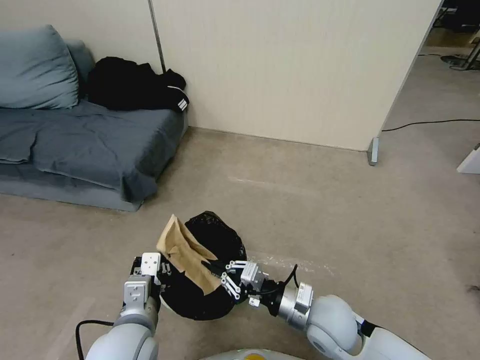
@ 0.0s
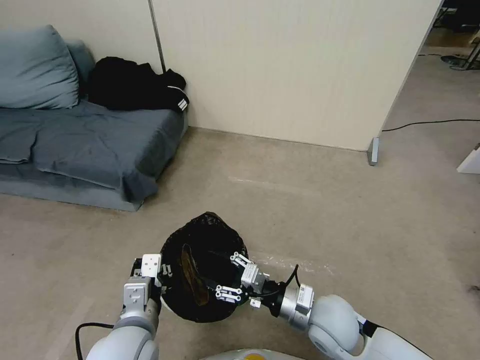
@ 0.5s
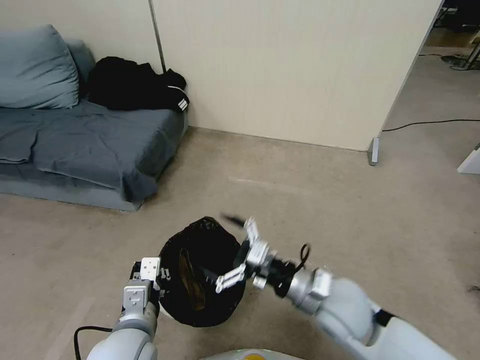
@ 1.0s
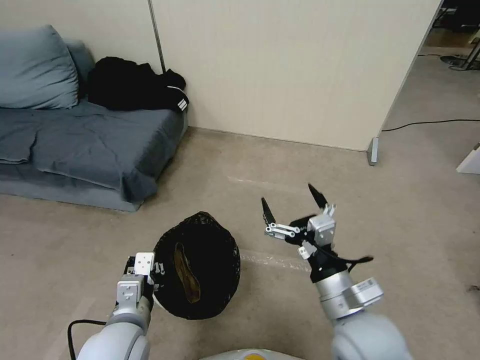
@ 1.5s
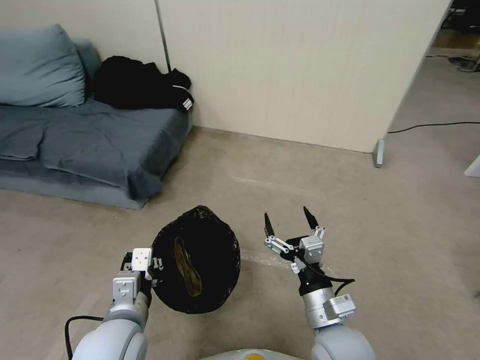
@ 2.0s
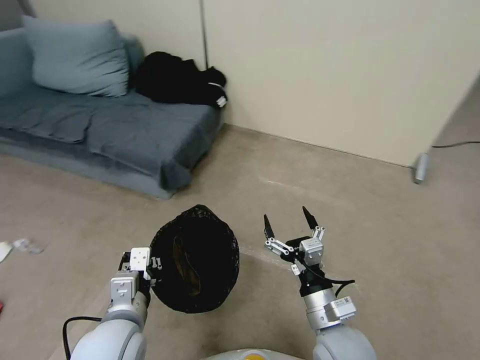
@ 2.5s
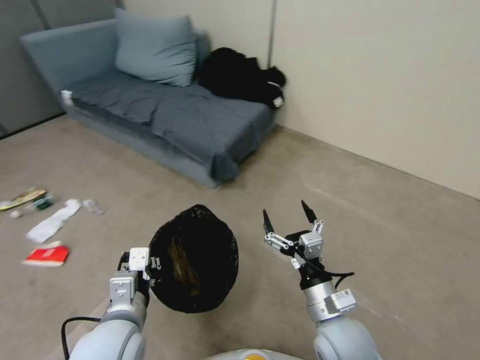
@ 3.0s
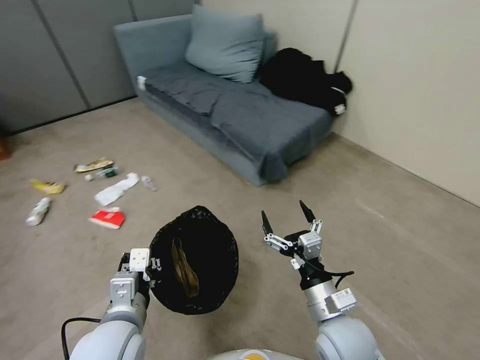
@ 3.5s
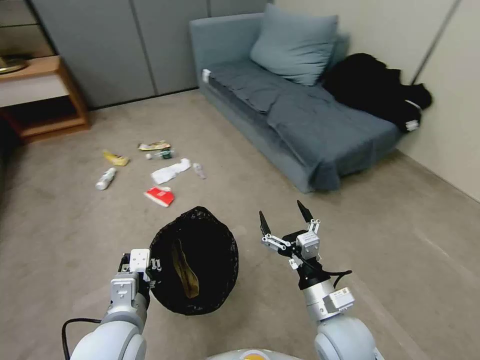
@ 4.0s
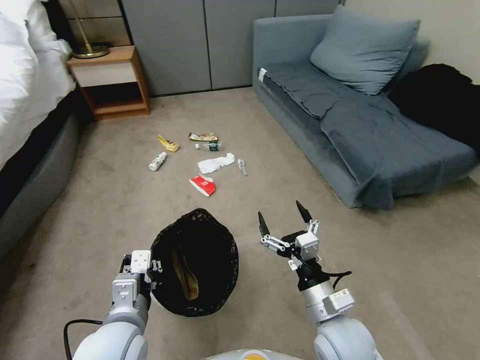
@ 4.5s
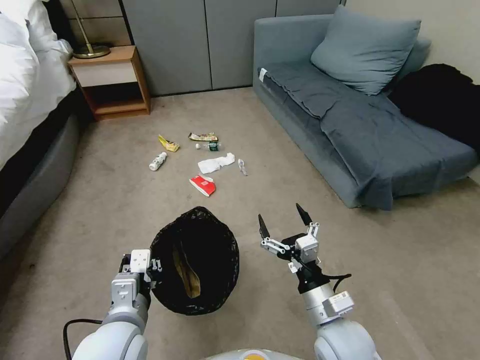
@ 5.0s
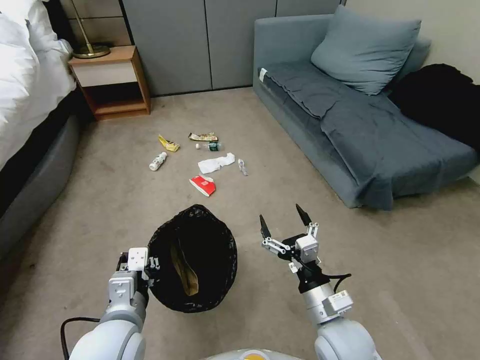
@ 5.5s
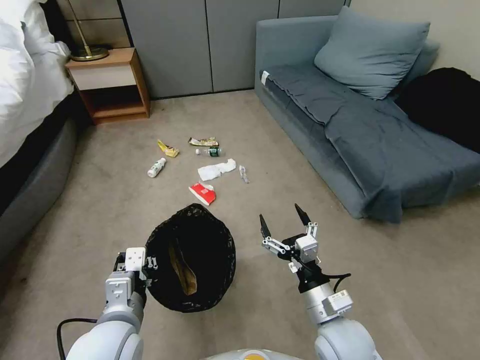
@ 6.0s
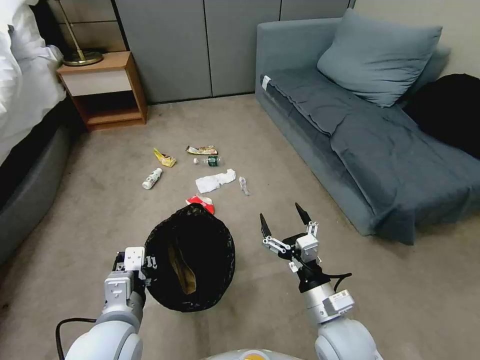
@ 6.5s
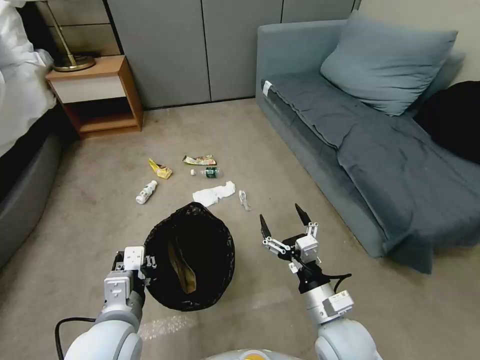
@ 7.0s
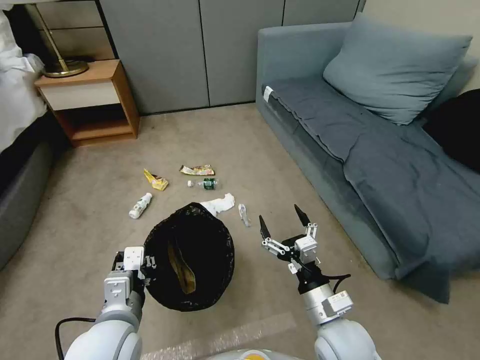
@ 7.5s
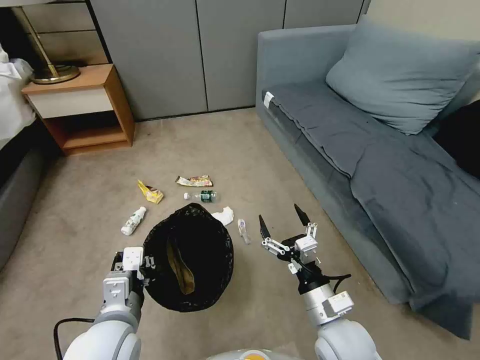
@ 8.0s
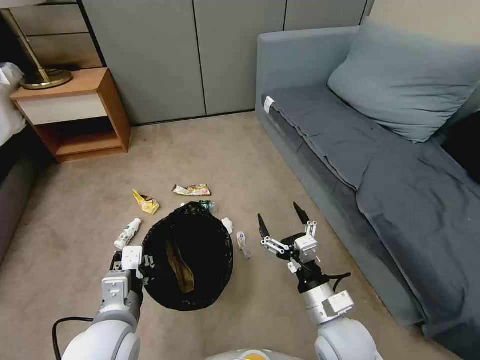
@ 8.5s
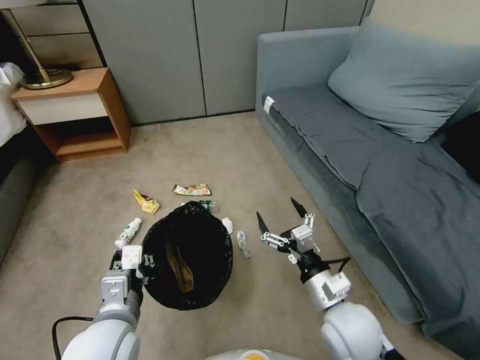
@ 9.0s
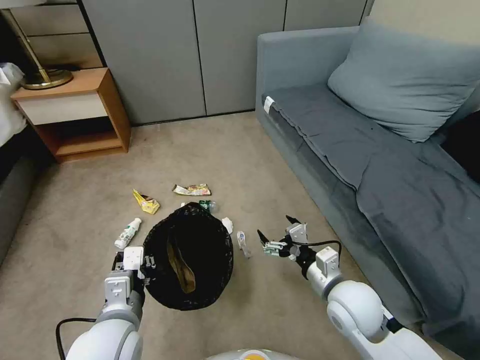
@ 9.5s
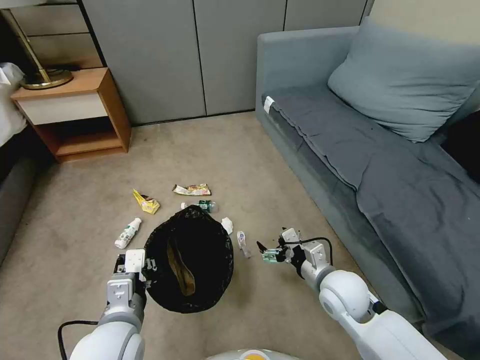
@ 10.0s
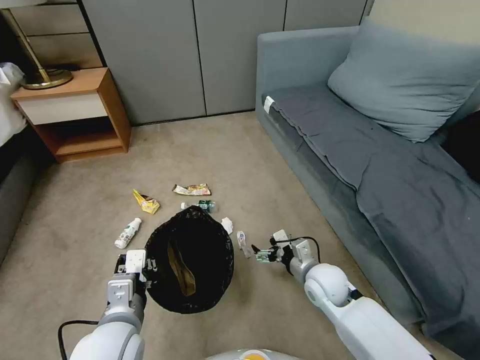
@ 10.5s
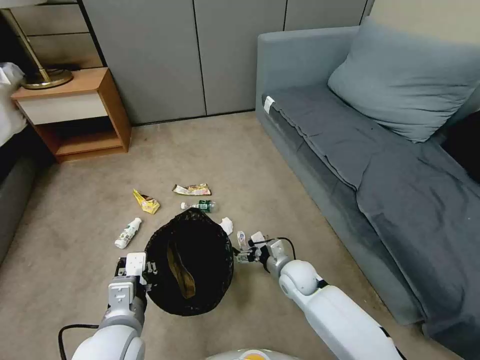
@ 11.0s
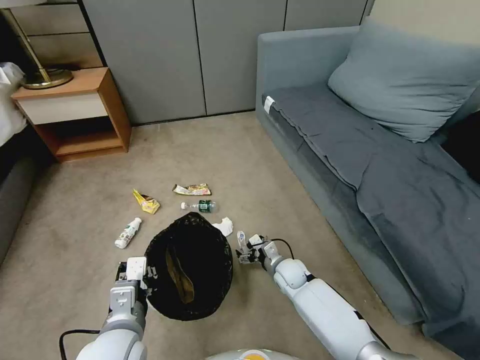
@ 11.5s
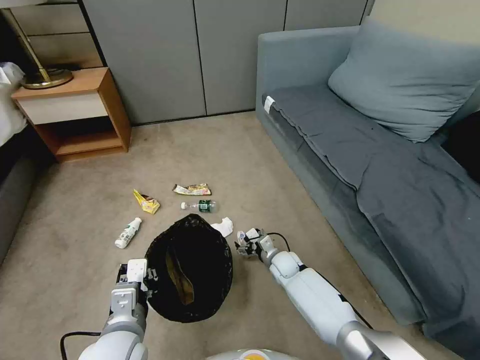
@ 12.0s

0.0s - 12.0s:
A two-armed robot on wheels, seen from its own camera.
Task of the whole recording: Pick up the trash bin, then pick up the garbage from the floor and place it into the trash bin.
0.0s - 2.0s: The right gripper moves backward, about 5 cm, reaches approximately 10 cm upward, then returns, and opens up.
8.0s - 10.0s: The right gripper moves forward, roughly 10 cm.
10.0s - 12.0s: The right gripper is displaced downward, forward and to the left by about 25 cm.

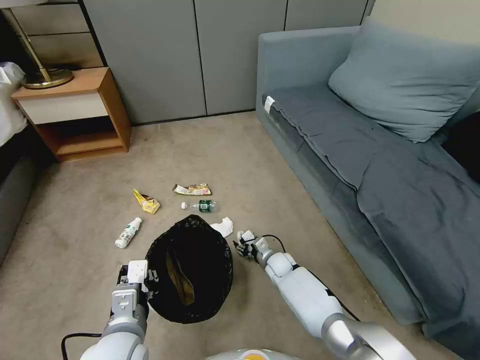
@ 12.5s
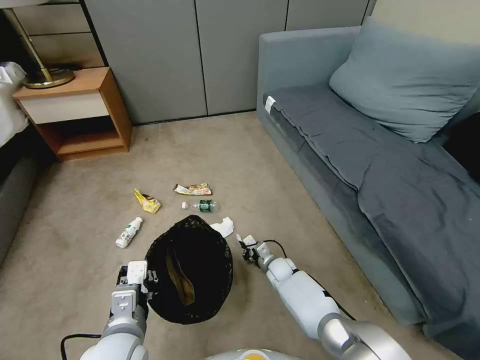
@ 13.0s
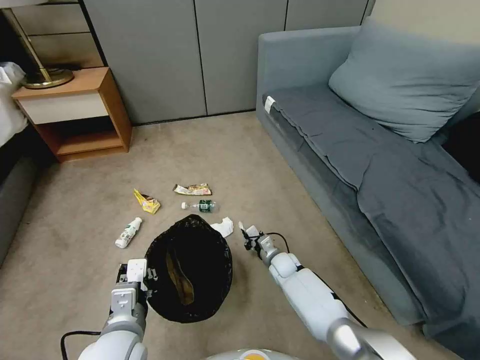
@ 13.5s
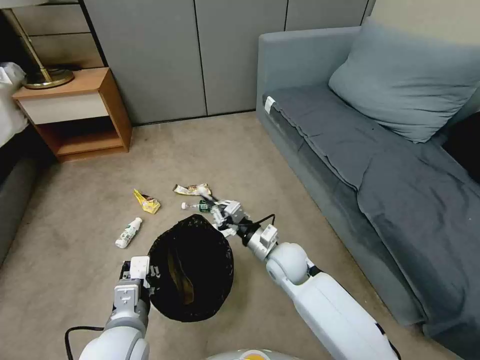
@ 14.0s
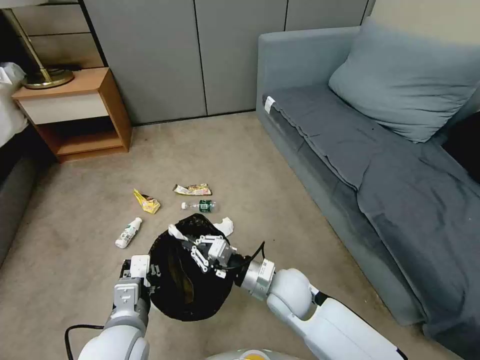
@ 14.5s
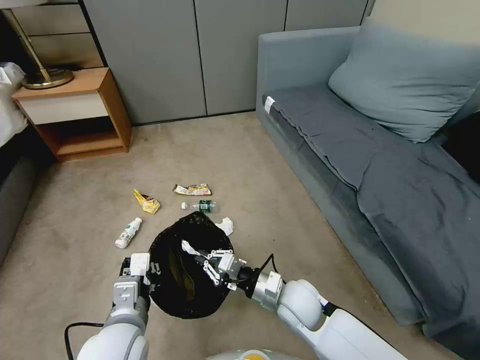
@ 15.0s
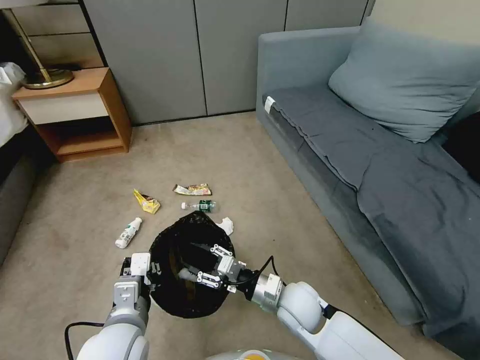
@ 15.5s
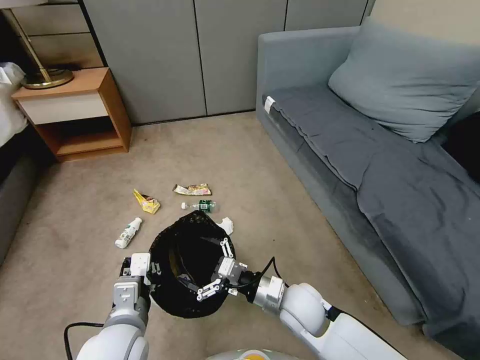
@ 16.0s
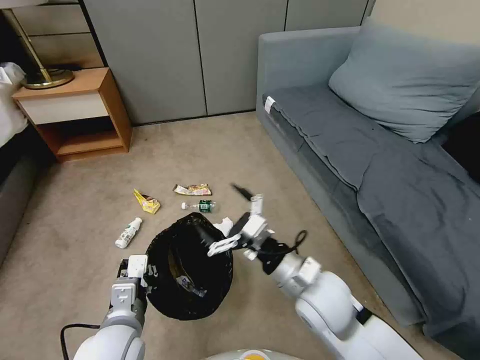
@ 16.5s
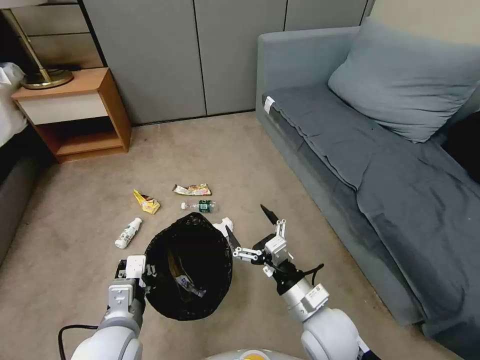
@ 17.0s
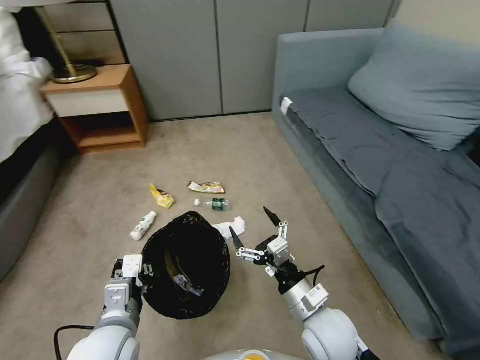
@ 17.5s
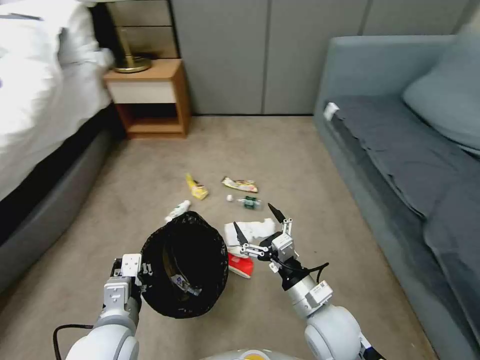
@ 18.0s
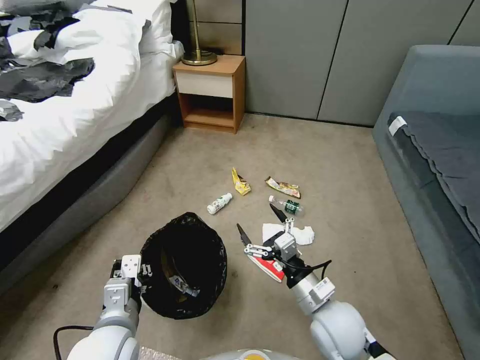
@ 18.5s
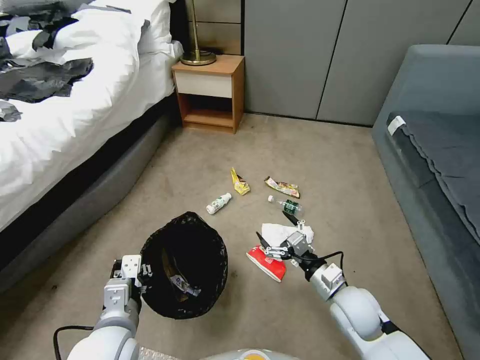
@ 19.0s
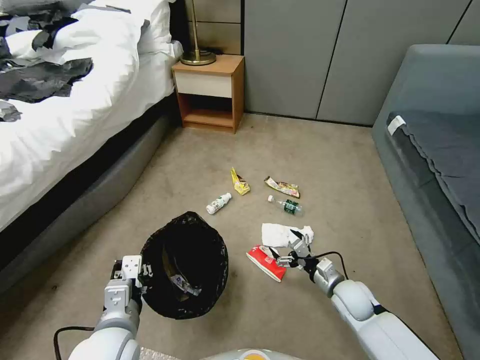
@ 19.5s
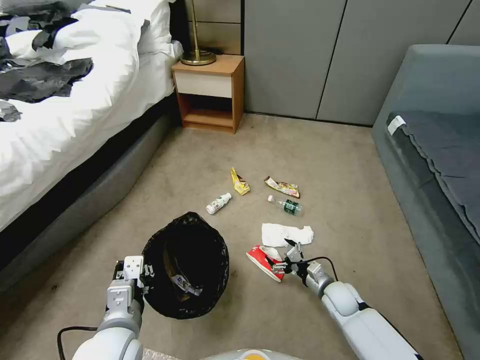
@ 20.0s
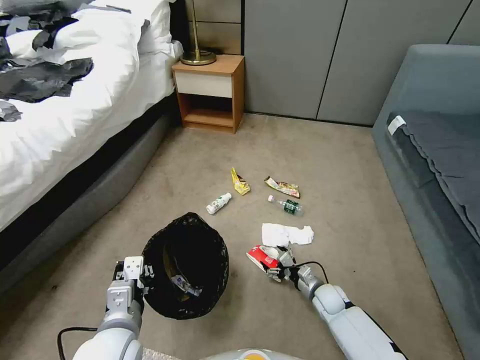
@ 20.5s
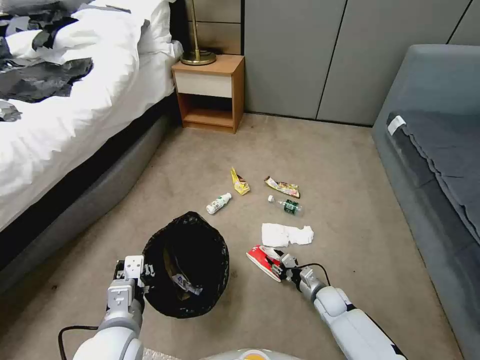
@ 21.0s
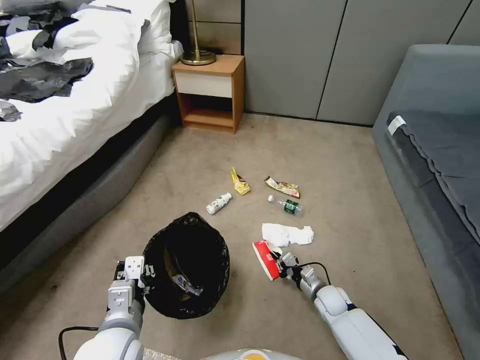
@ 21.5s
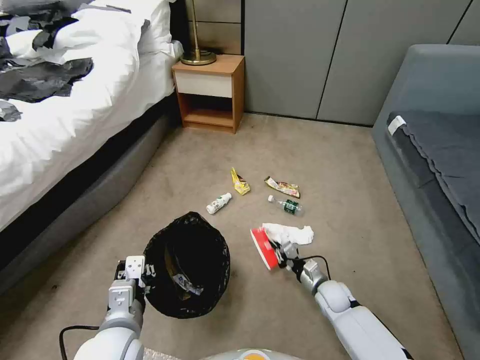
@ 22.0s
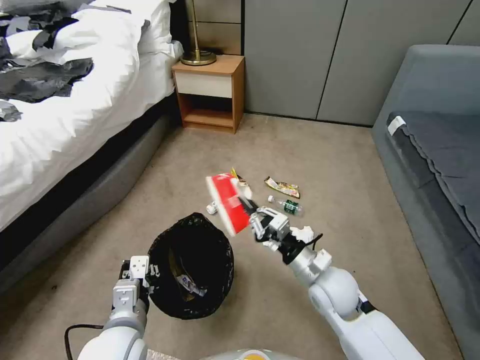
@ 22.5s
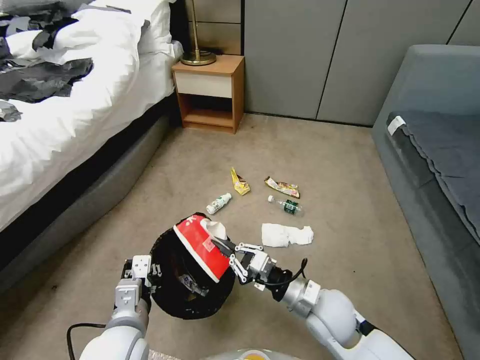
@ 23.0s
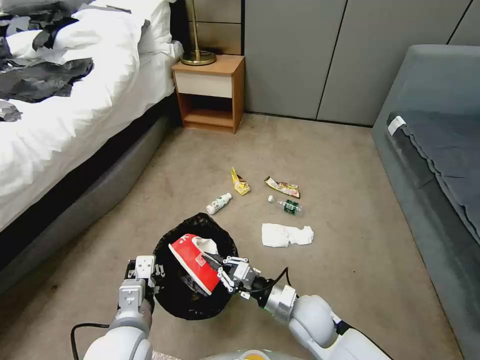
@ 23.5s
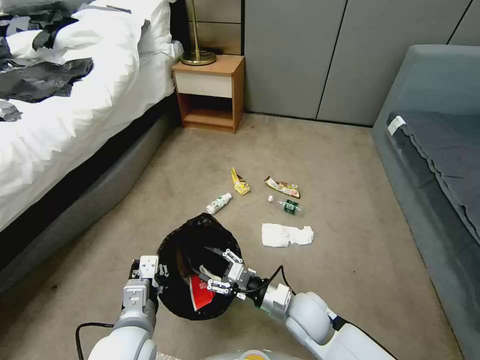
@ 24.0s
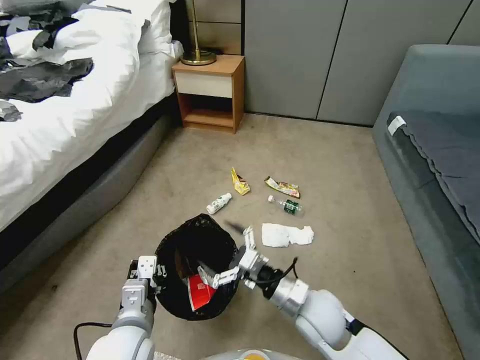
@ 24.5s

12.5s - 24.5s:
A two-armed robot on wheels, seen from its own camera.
Task of the whole recording: Pick up the trash bin, then pick up the garbage from the floor and place it into the trash bin.
12.5s - 14.5s: The right gripper shifts roughly 25 cm upward and backward, and closes up.
14.5s - 16.5s: The right gripper heads upward, covering some 10 cm, and opens up.
16.5s - 18.5s: The right gripper goes some 10 cm downward.
18.5s - 20.5s: The right gripper heads downward and forward, covering about 25 cm.
20.5s - 22.5s: The right gripper travels upward by approximately 25 cm, and closes.
22.5s - 24.5s: The right gripper goes downward and returns, roughly 10 cm each way, and opens its fingers.

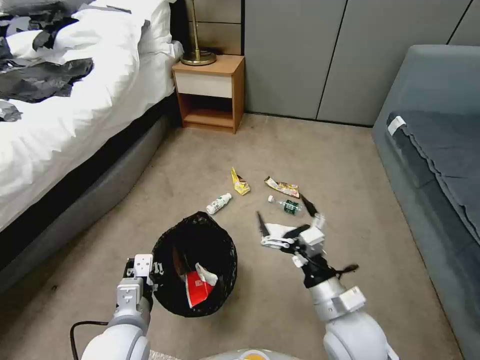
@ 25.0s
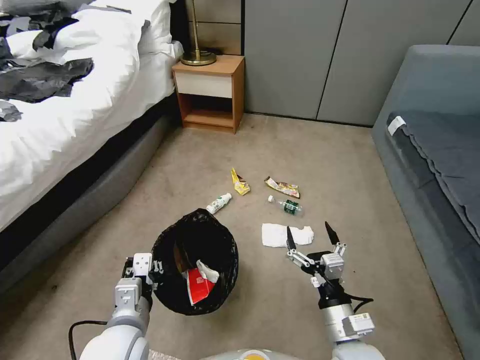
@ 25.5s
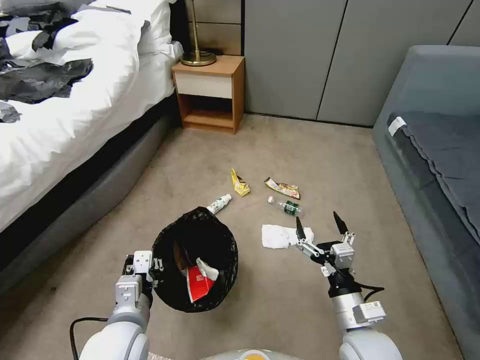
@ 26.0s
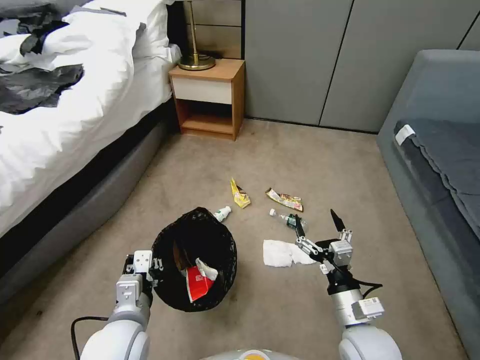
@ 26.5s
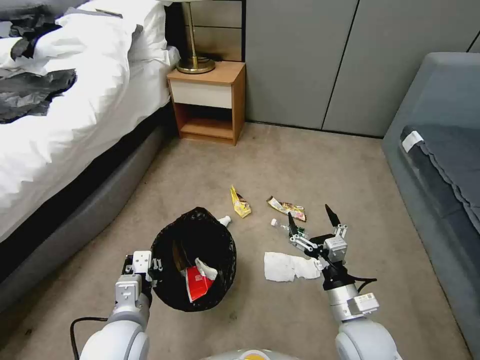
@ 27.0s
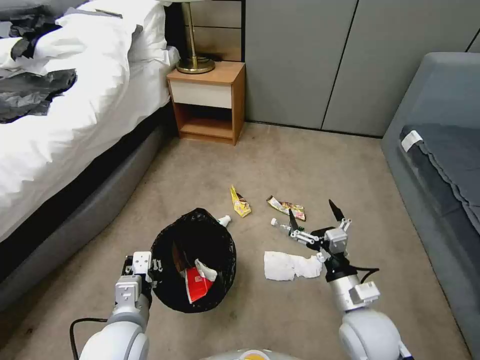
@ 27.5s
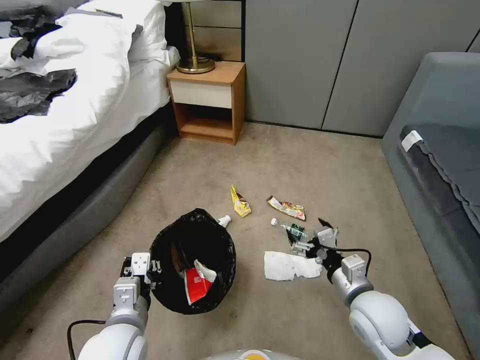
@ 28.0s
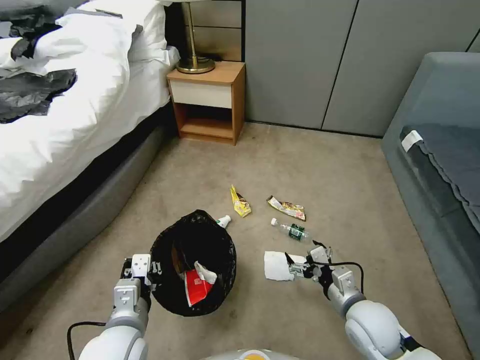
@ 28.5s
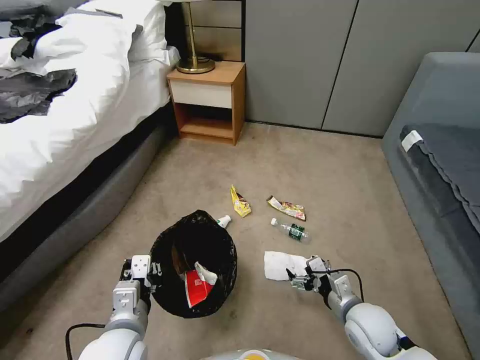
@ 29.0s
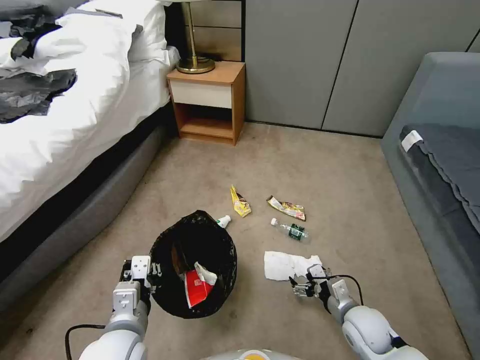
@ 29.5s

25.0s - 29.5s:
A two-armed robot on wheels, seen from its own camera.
Task of the whole recording: Pick up the trash bin, then pick up the garbage from the floor and place it into the trash bin.
25.0s - 27.0s: The right gripper moves roughly 5 cm.
27.0s - 29.5s: The right gripper heads downward and to the right, covering about 10 cm.
